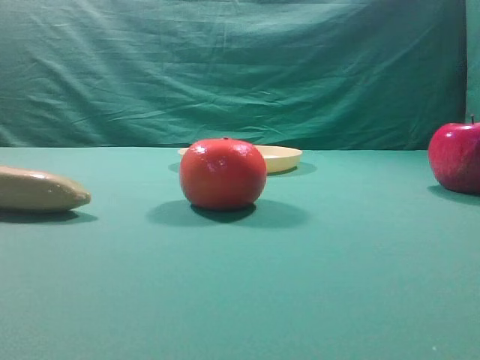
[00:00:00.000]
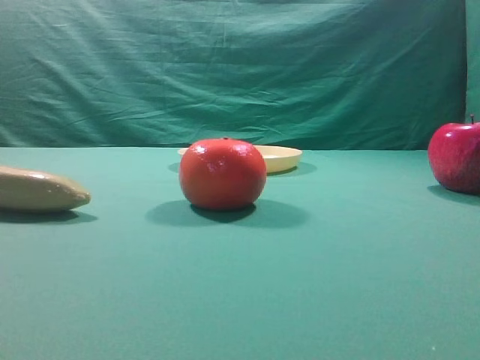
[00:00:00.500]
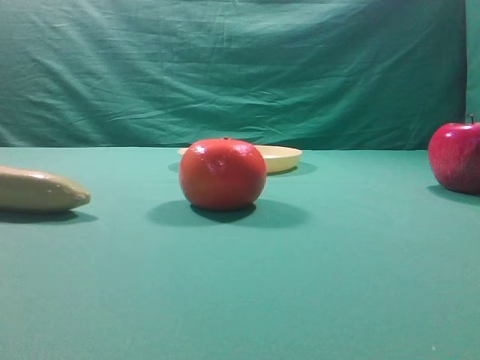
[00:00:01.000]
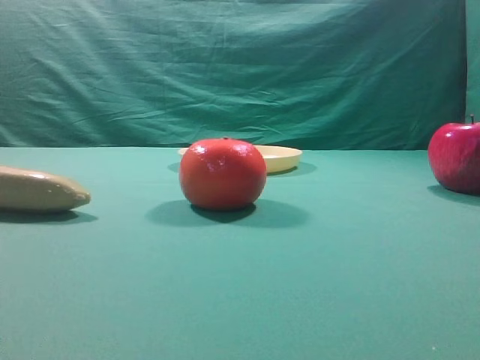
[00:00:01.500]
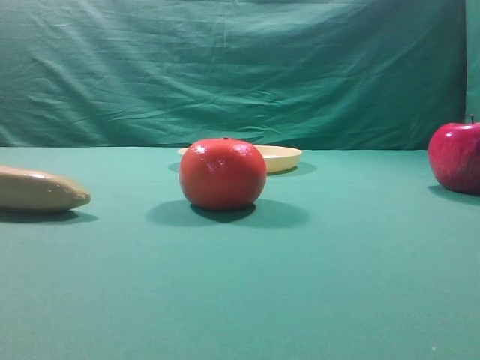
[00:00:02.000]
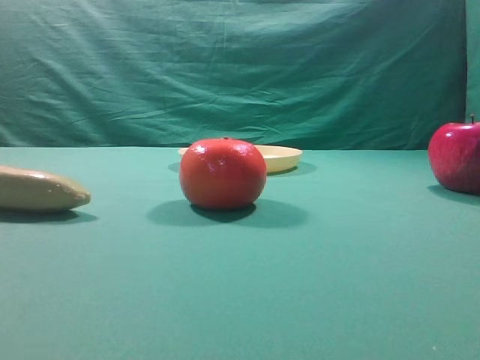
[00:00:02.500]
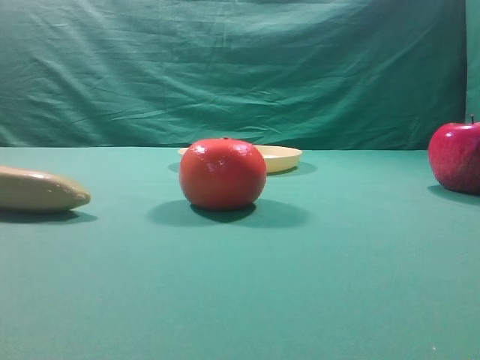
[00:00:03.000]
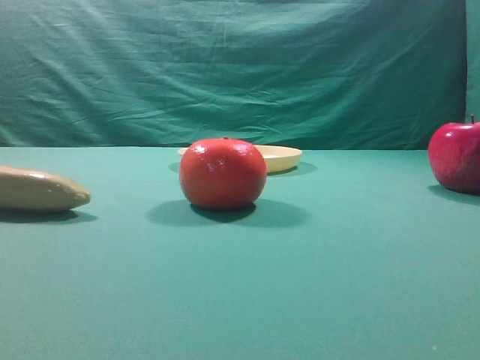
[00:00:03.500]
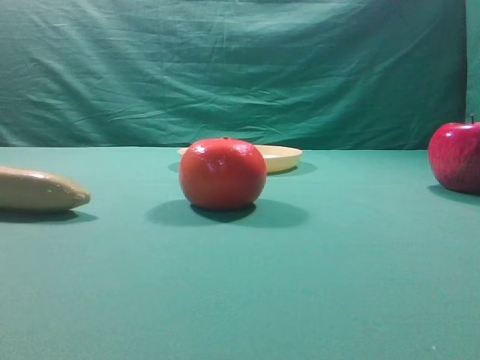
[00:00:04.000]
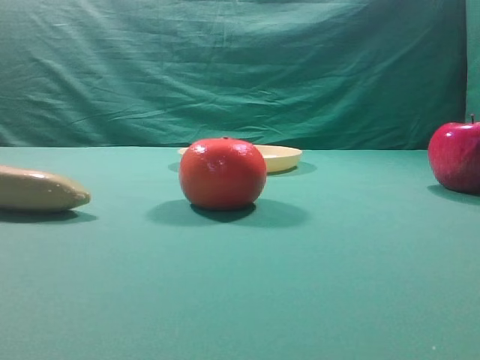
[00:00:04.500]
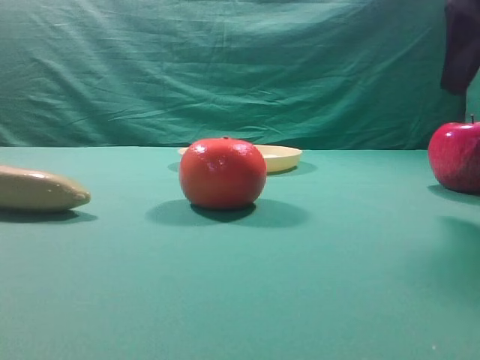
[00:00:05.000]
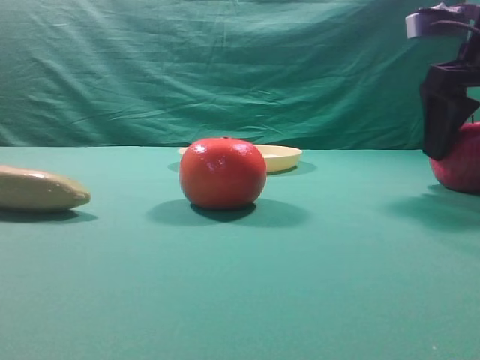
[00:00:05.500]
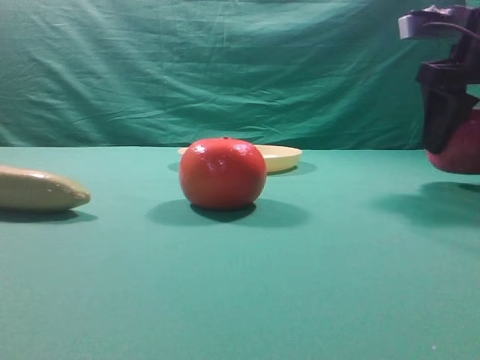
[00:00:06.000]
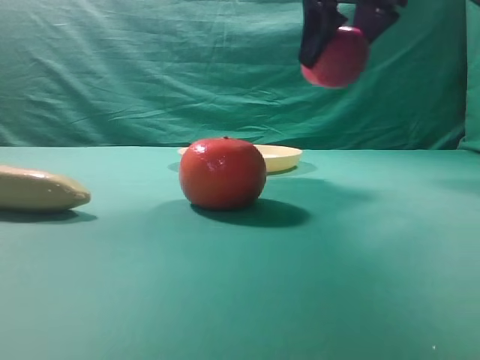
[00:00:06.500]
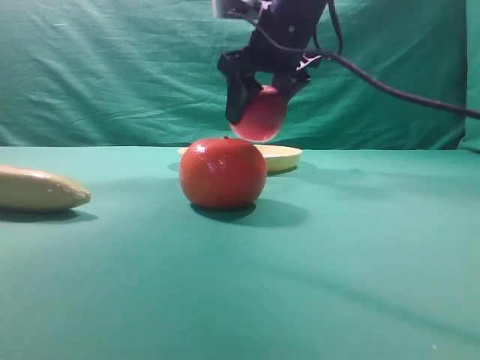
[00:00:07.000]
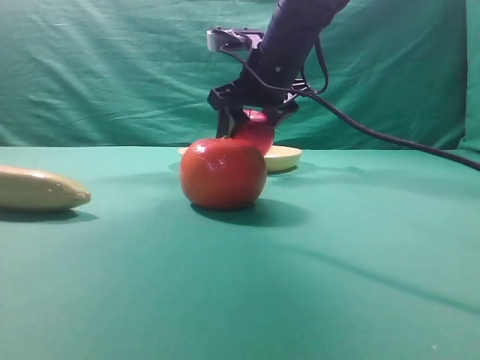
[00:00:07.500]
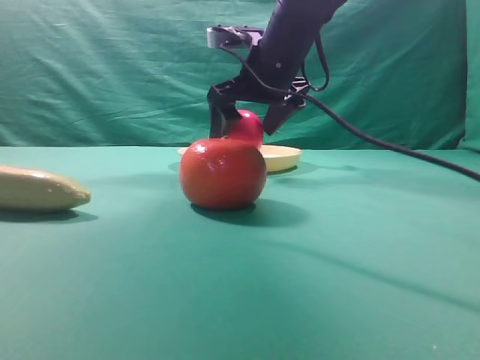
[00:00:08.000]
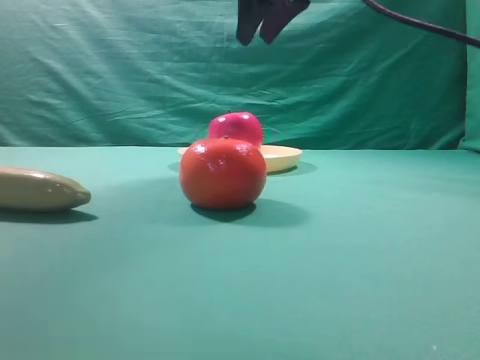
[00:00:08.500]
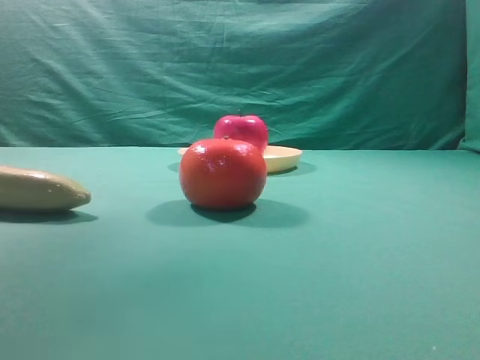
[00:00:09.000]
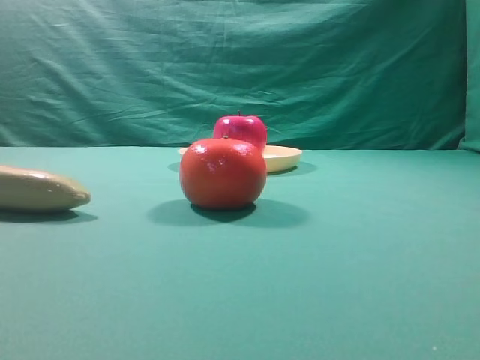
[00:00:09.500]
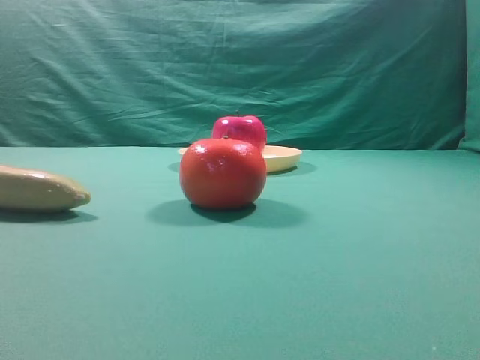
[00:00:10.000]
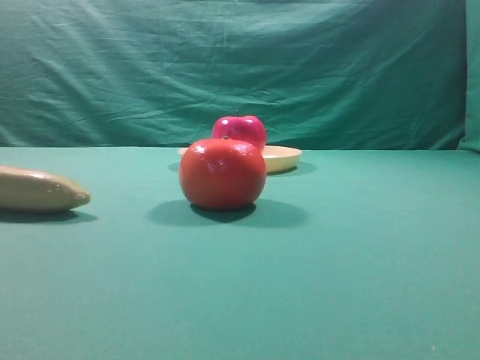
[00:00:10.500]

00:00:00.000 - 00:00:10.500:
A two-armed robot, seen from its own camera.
Task of the whole recording: grasp the apple and place it into the yellow plate.
Step, 00:00:00.000 - 00:00:06.000: Grasp the fruit that can keep the doctor away.
Step, 00:00:06.500 - 00:00:08.000: Place the picked object into the yellow plate.

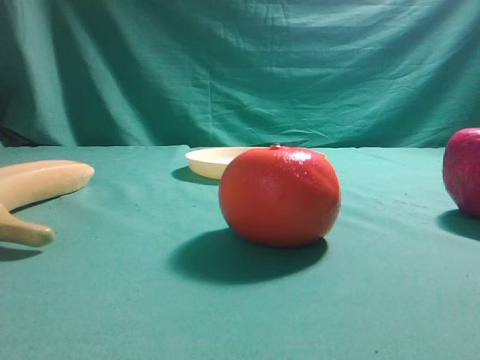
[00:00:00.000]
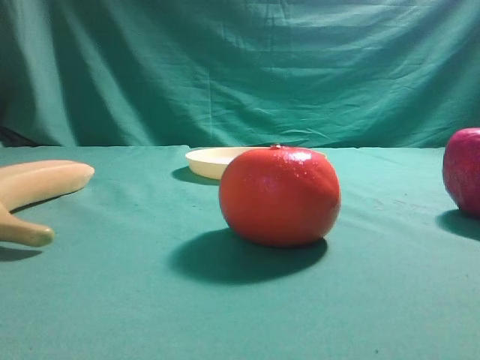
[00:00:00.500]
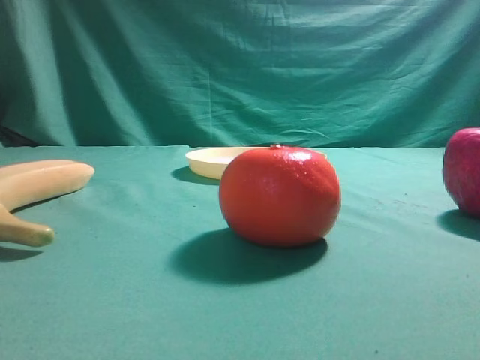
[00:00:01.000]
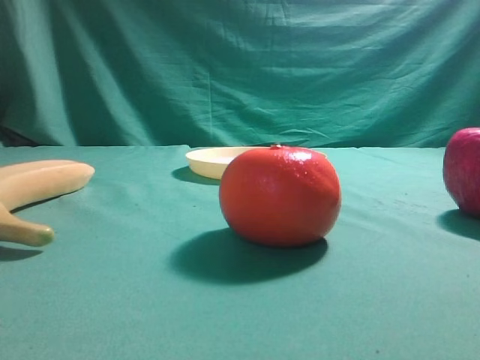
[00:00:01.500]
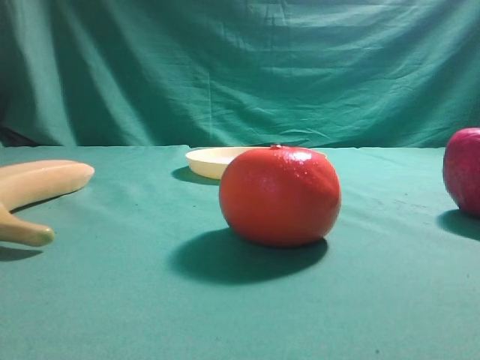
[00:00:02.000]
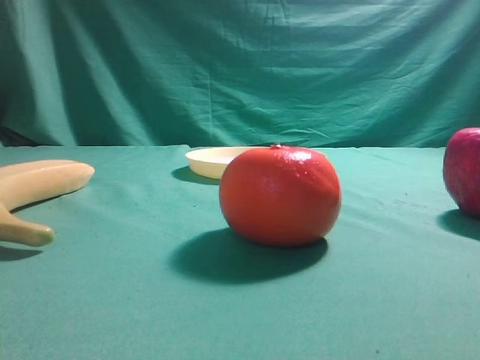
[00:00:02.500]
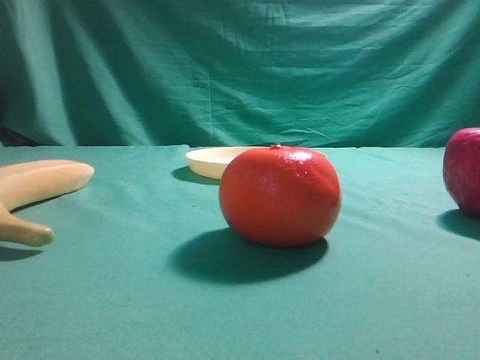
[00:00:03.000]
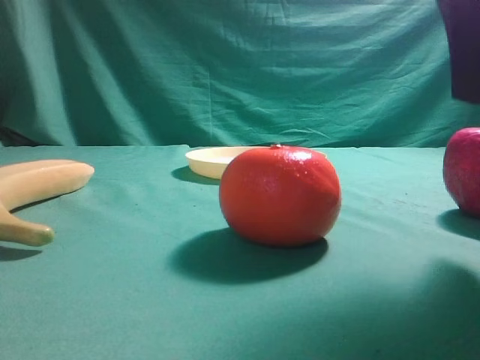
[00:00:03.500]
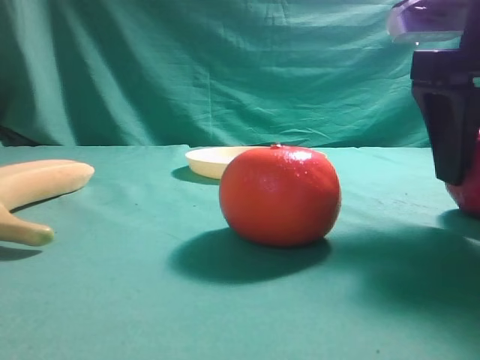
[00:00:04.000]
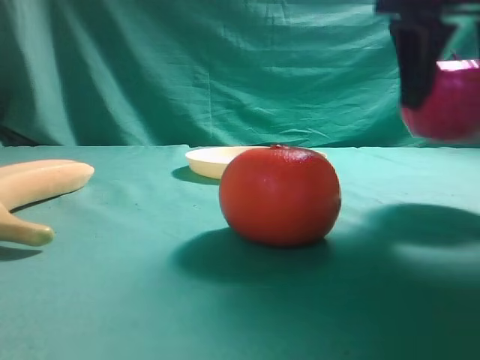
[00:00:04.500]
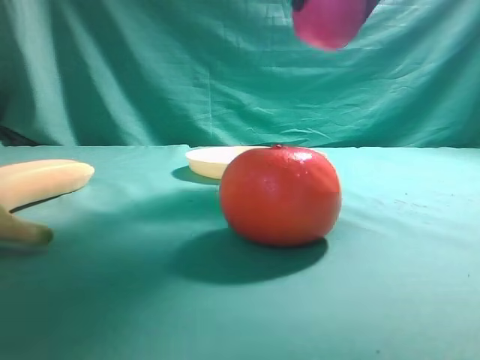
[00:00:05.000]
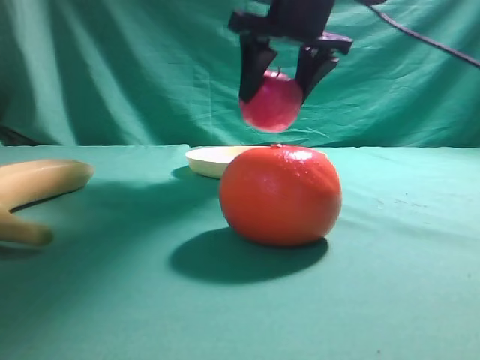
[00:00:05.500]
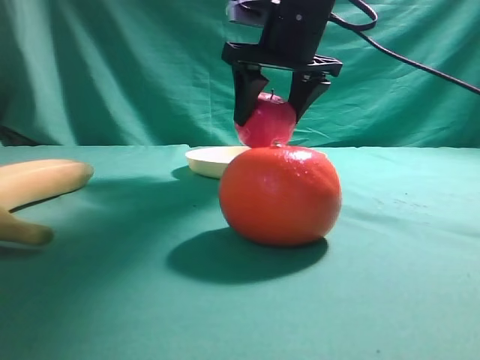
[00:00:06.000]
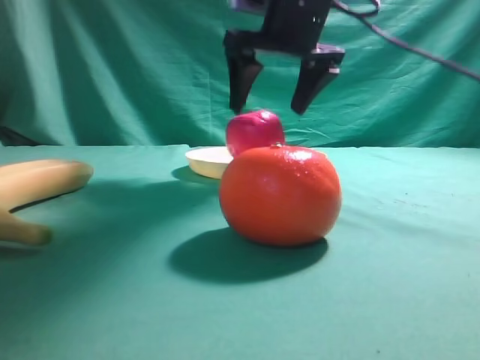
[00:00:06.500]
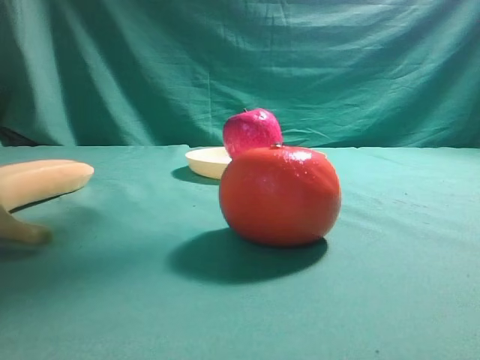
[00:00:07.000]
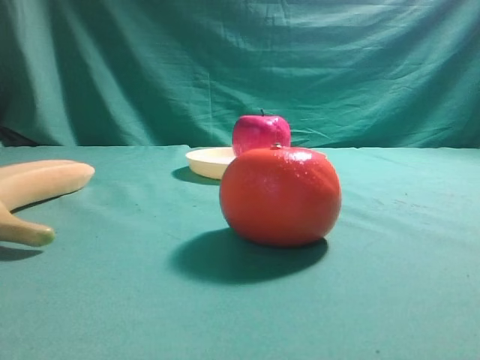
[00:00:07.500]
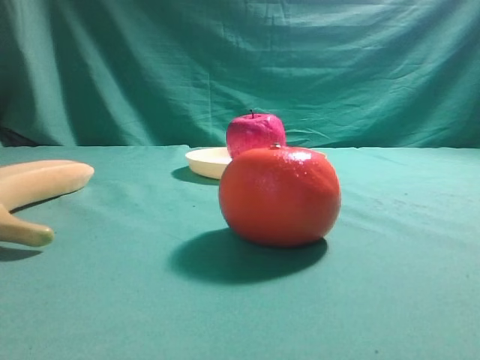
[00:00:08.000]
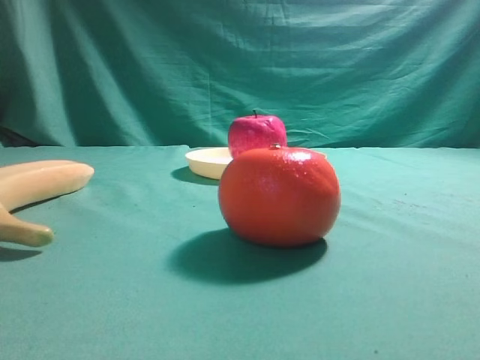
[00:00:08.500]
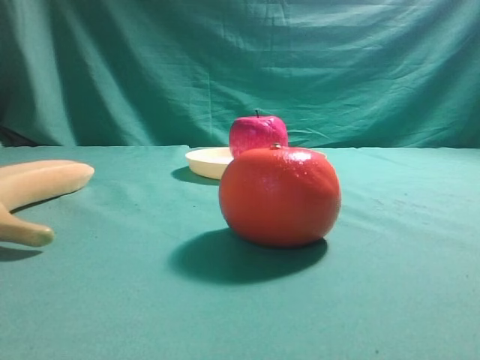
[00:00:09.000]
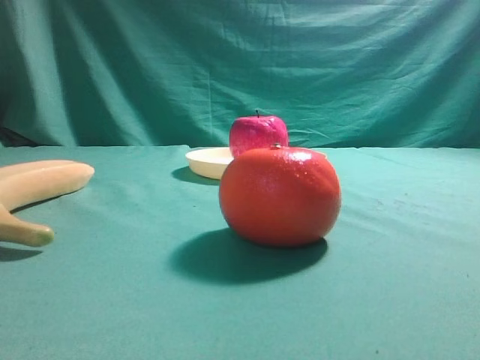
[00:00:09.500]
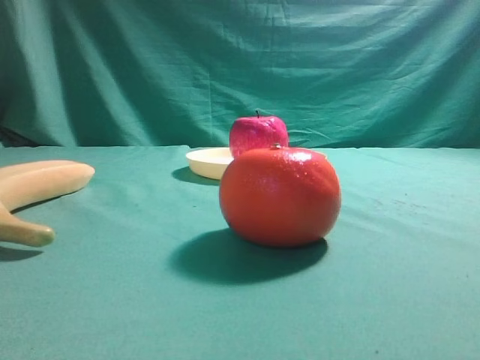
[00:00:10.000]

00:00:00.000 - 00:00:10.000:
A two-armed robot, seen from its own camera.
Task of the whole recording: grasp the apple and place it into the yellow plate.
Step, 00:00:00.000 - 00:00:04.000: Grasp the fruit that can keep the doctor away.
Step, 00:00:04.500 - 00:00:06.000: Place the picked object into the yellow plate.
